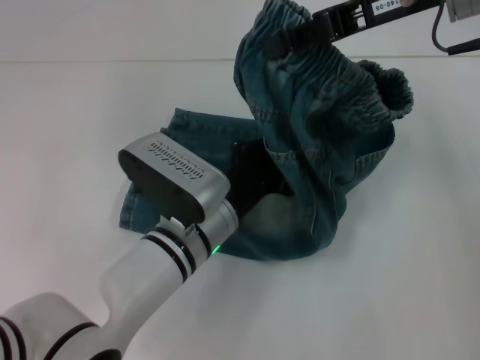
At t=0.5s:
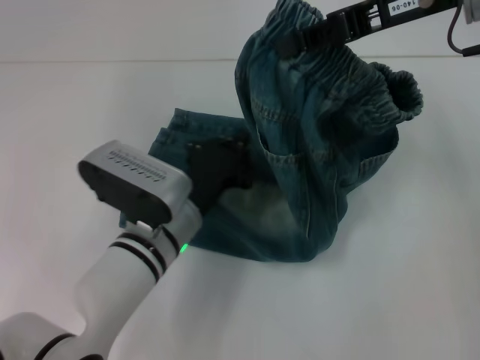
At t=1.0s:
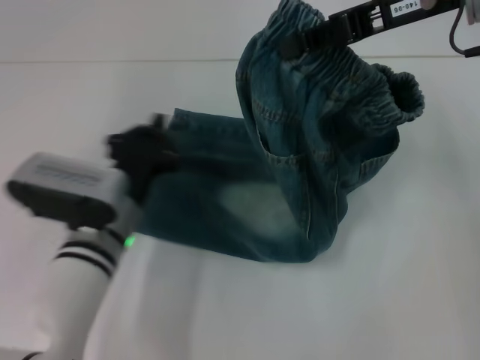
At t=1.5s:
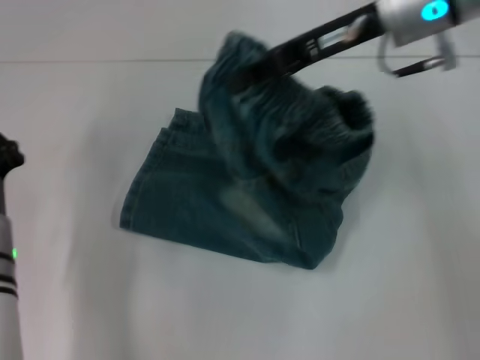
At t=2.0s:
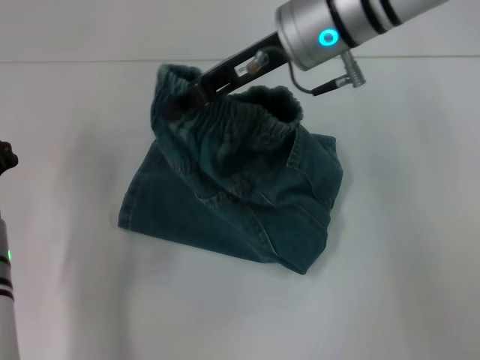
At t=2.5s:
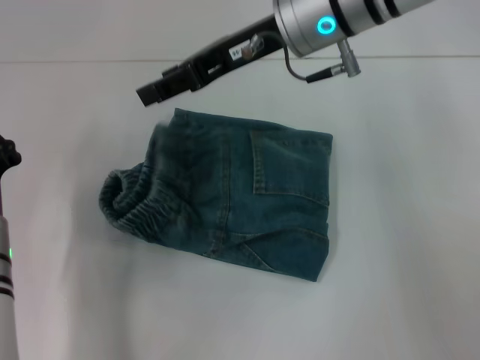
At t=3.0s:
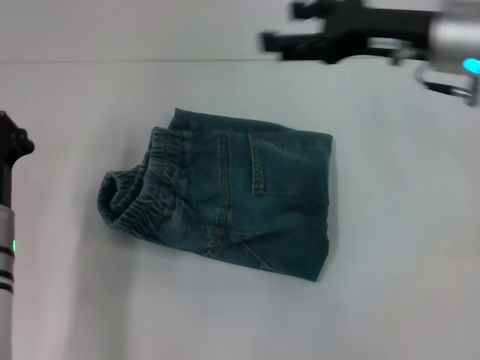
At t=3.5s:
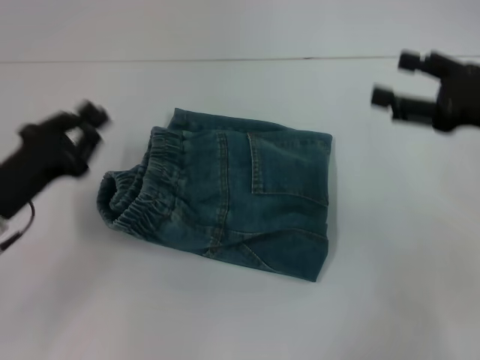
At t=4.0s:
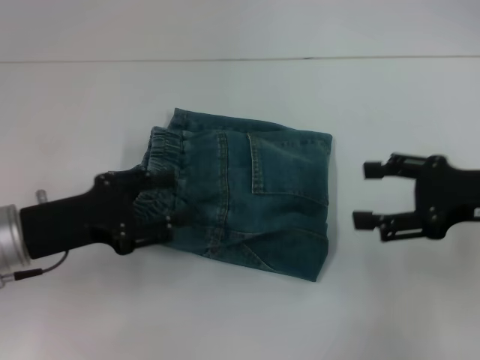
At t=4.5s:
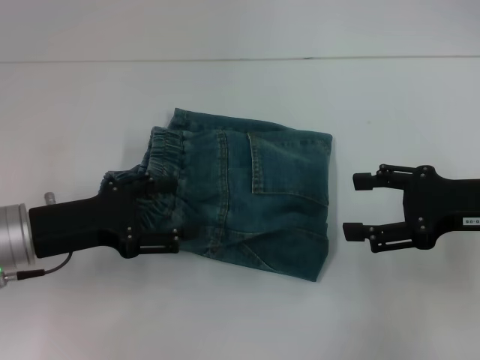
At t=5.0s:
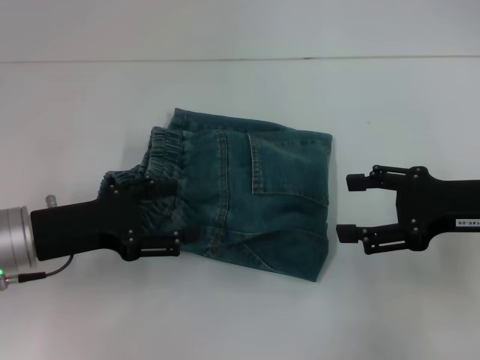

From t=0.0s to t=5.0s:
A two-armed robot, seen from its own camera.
Step, from t=0.0s to t=2.5s: Fold to the left with your right hand.
From t=0.0s to t=2.5s: The left gripper is displaced to the left by some 15 cm, while the right gripper is displaced to the left by about 10 cm, and opens.
From t=2.5s to t=5.0s: The right gripper is displaced to the right, backward and downward by roughly 25 cm, and opens, while the left gripper ends up approximately 5 cm from where it was, and opens.
